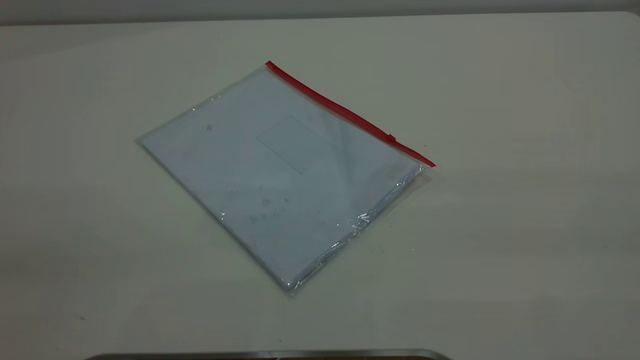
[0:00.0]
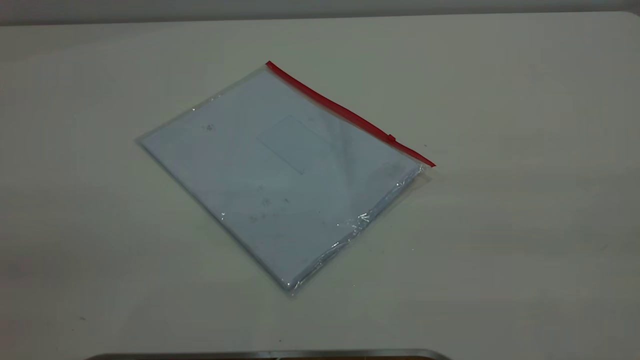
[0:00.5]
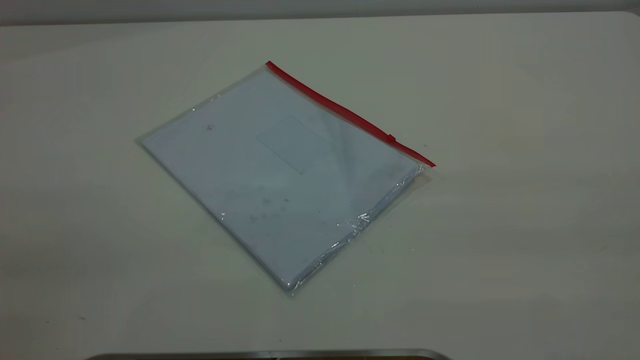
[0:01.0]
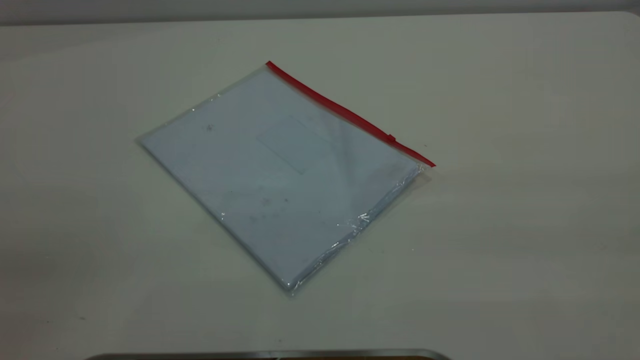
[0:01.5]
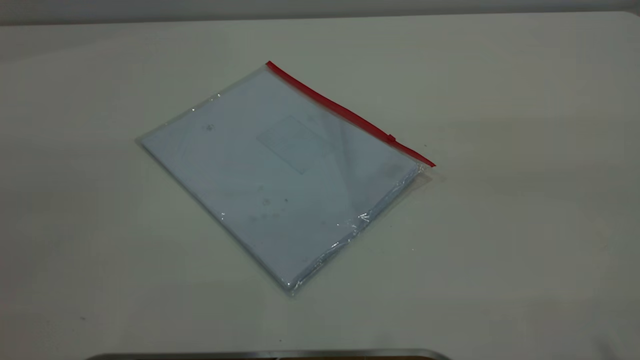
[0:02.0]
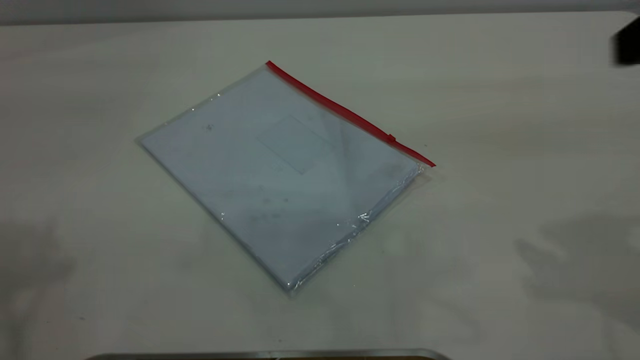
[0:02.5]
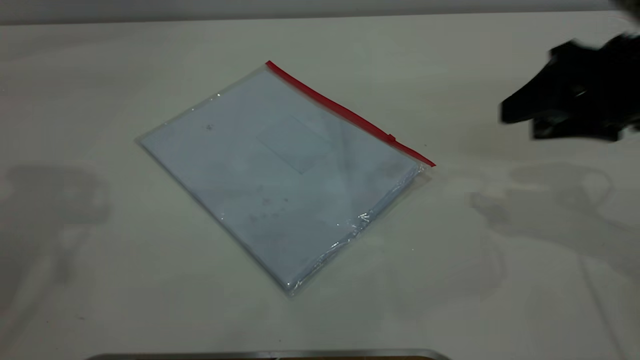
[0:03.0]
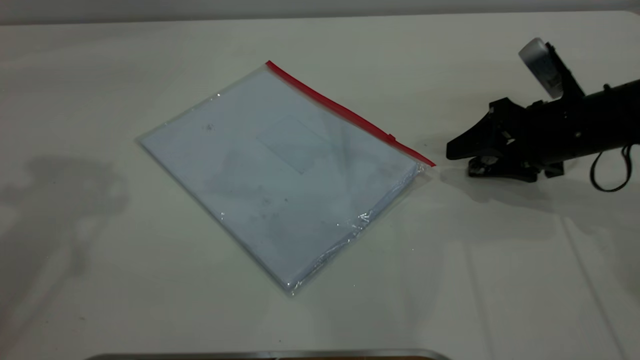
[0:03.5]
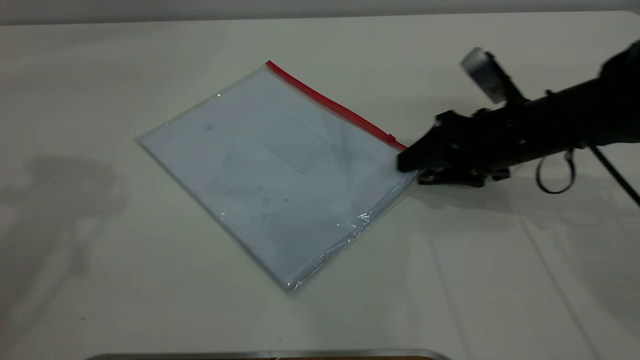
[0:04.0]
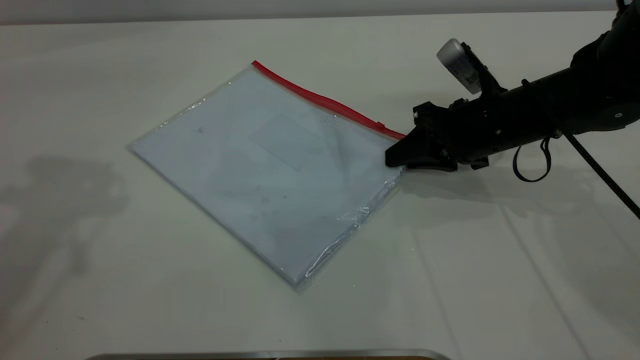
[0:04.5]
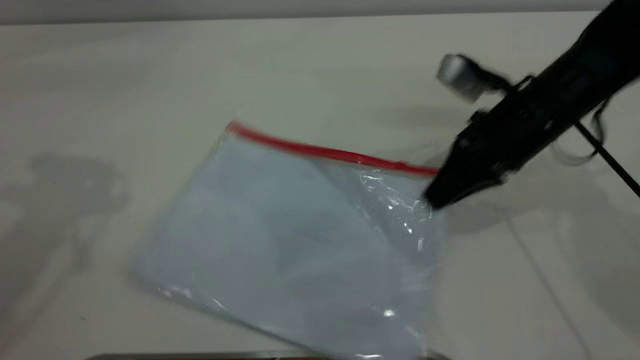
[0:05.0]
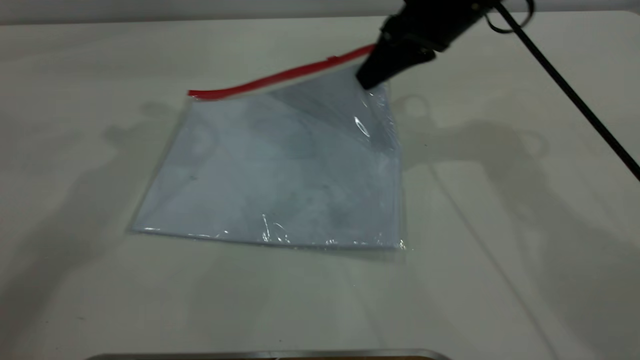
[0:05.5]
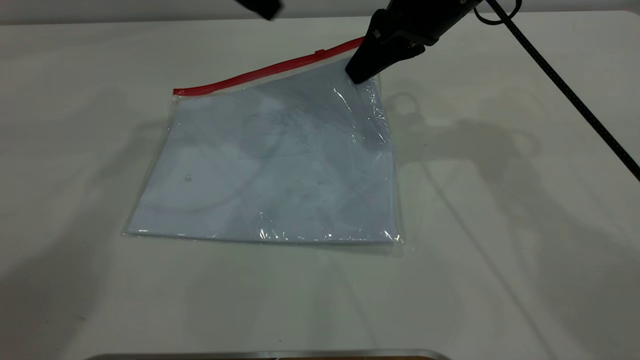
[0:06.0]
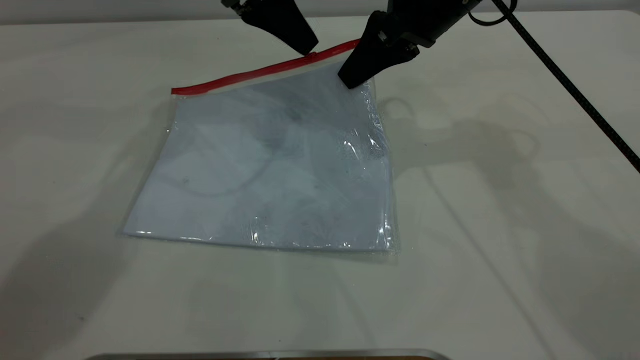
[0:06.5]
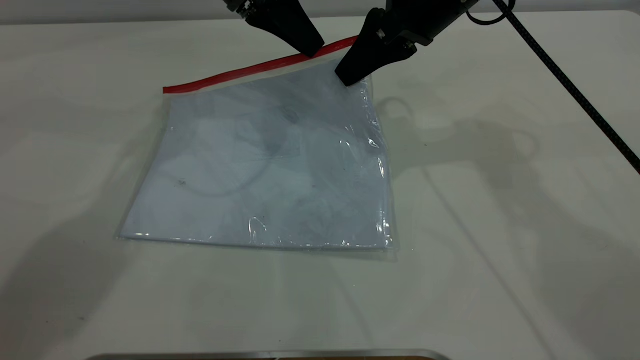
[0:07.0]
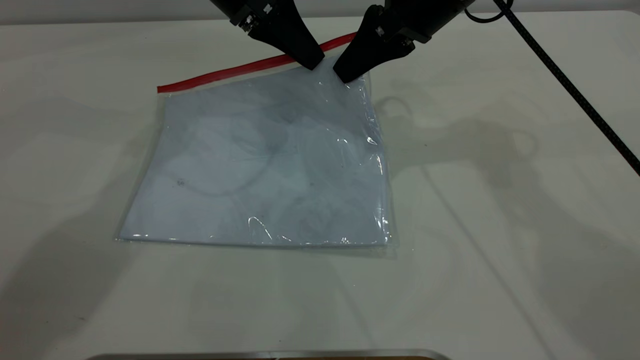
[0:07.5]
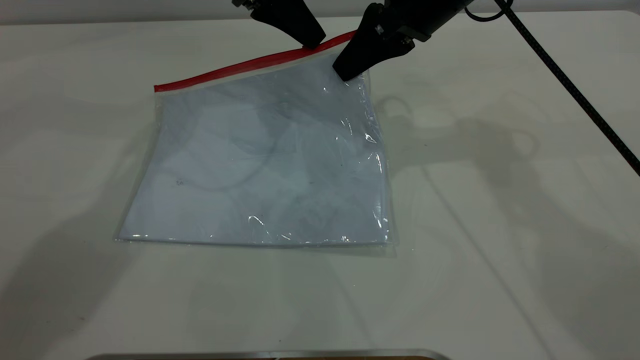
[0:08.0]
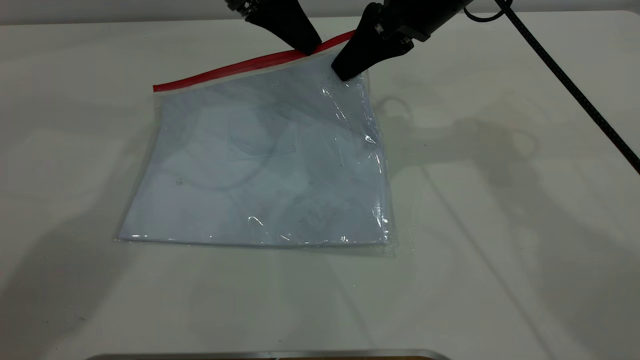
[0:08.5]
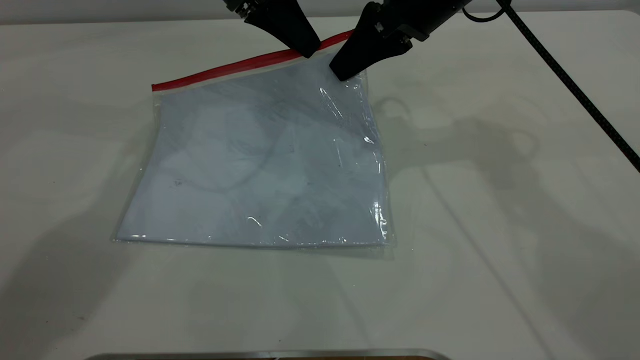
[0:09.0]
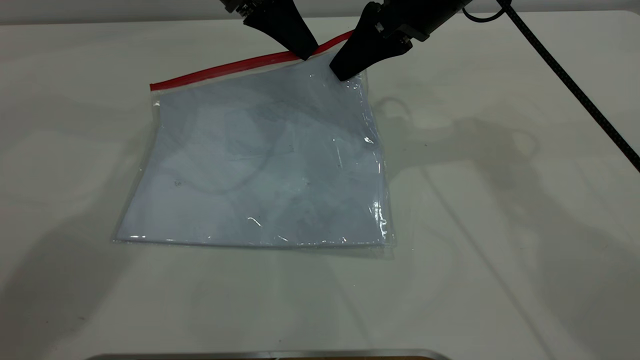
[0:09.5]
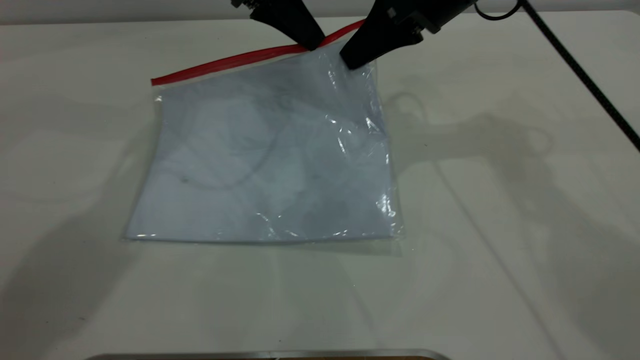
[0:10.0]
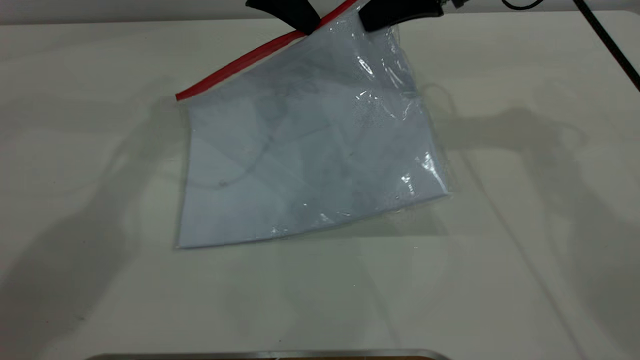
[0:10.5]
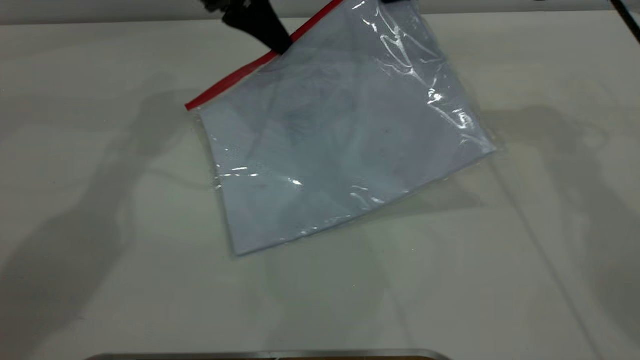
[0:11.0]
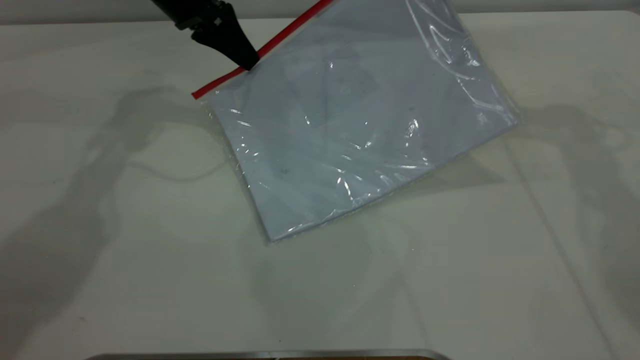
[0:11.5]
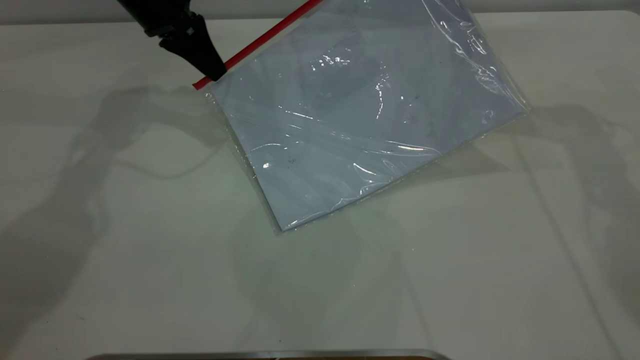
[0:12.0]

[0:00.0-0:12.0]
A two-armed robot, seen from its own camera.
Step, 0:00.0 to 0:05.5: Pick up the transparent plastic bag with the right gripper.
0:02.0 to 0:04.0: The right gripper is displaced downward and forward by about 40 cm.
0:04.0 to 0:06.0: The right gripper shifts roughly 15 cm upward, to the left and forward, and closes. The left gripper travels to the right, forward and downward by about 25 cm.
0:06.0 to 0:08.0: The left gripper changes place by about 5 cm, and closes its fingers.
0:08.0 to 0:10.0: The left gripper opens, then closes once more.
0:10.0 to 0:12.0: The right gripper moves to the right, some 10 cm. The left gripper moves to the left, approximately 10 cm.

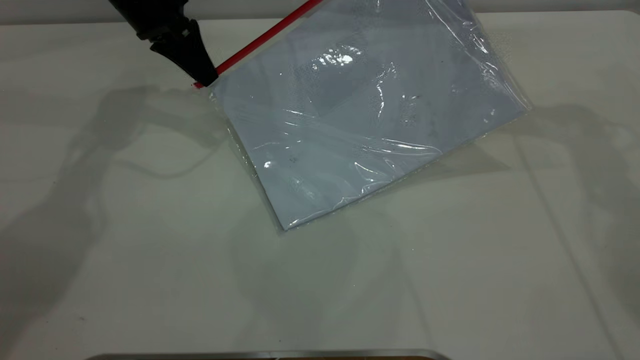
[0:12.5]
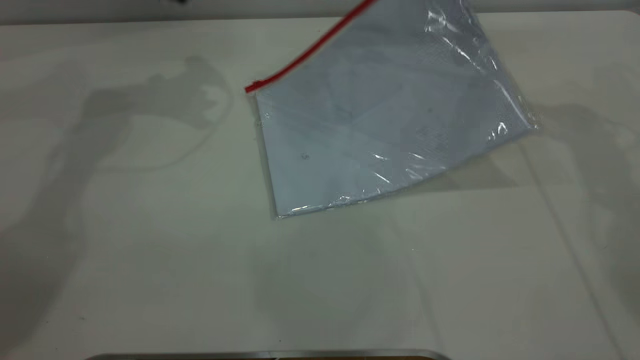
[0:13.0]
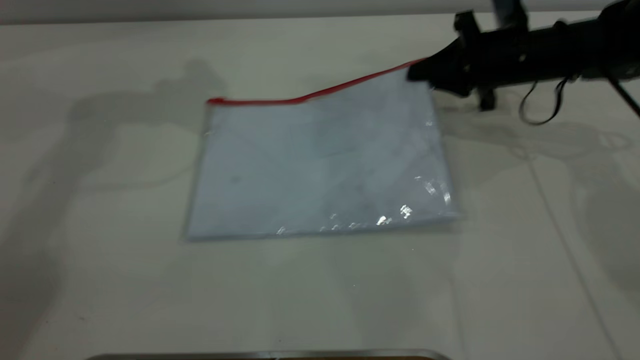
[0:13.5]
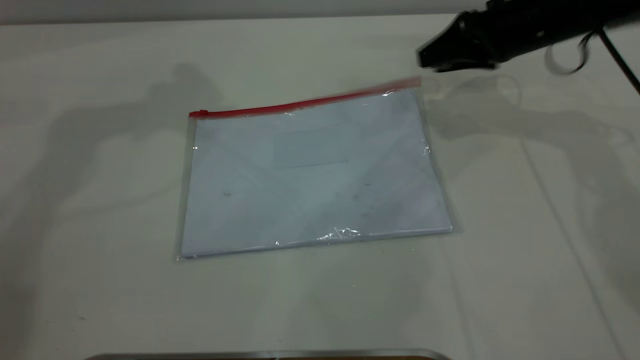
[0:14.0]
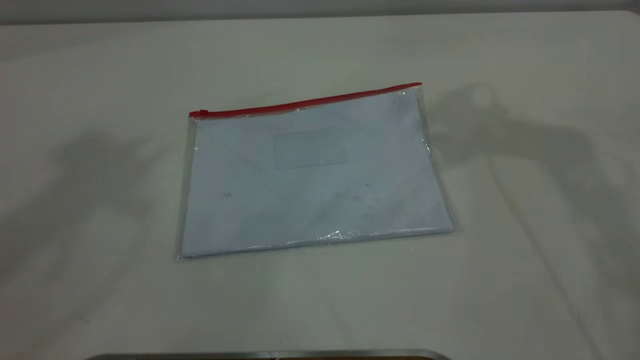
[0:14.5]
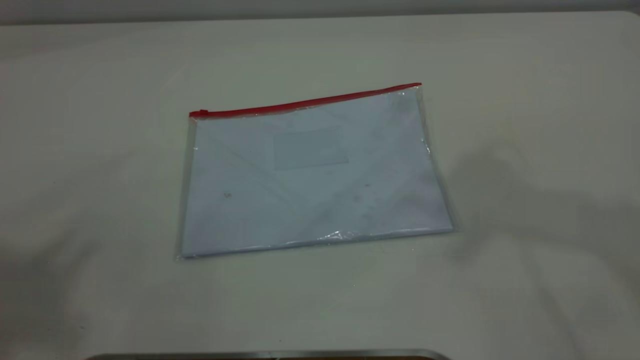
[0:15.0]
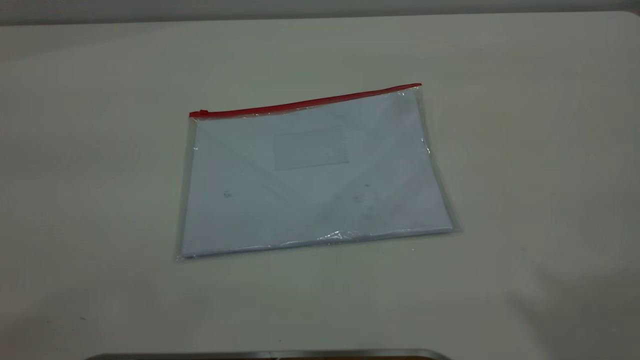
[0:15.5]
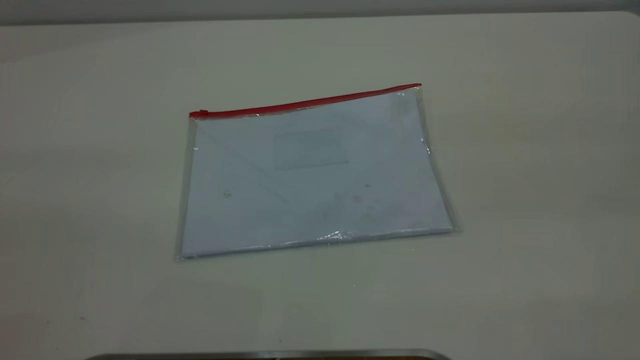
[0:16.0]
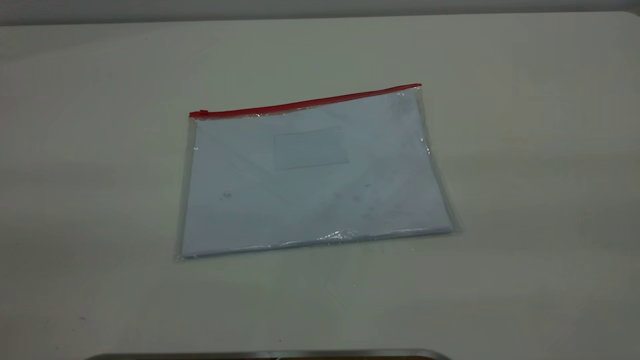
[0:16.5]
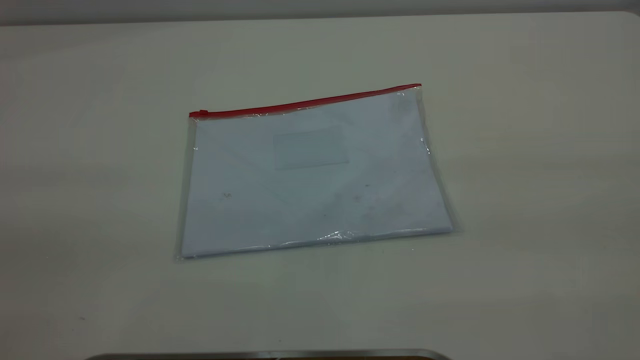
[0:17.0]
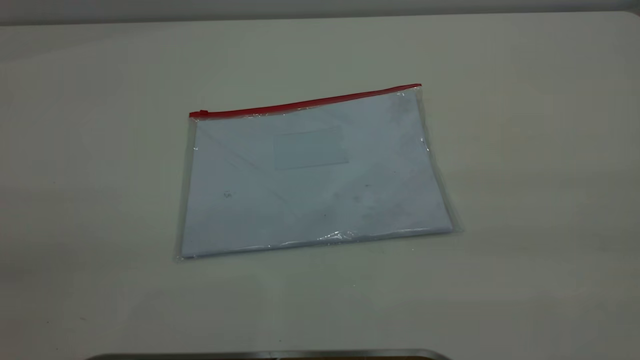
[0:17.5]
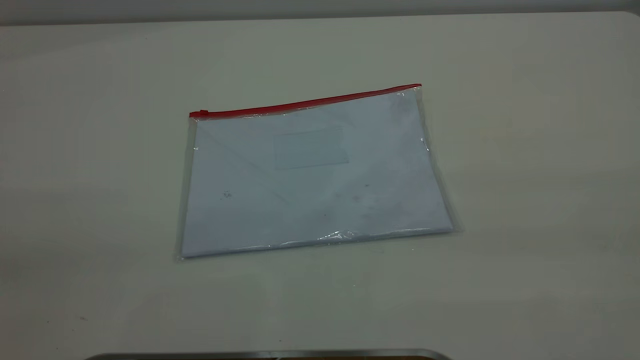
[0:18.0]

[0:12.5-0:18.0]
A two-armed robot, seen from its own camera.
Step, 0:13.0 to 0:14.0: Place the transparent plastic bag.
0:12.5 to 0:14.5: The left gripper shifts about 50 cm upward and backward, and opens, while the right gripper moves upward and backward, roughly 15 cm, and opens up.
